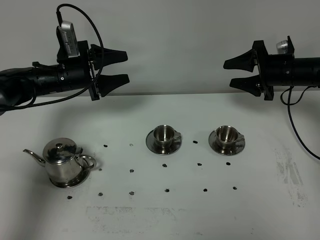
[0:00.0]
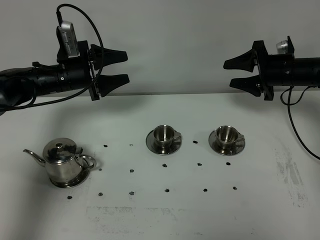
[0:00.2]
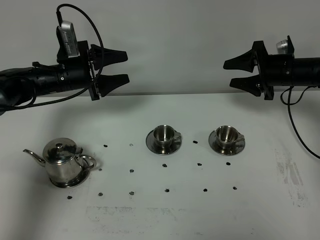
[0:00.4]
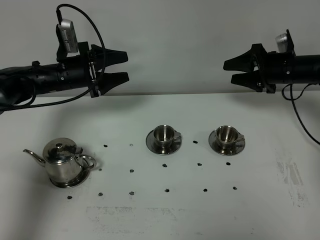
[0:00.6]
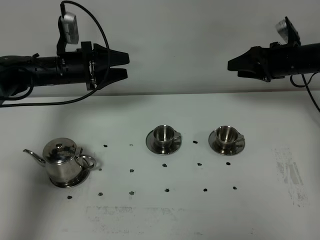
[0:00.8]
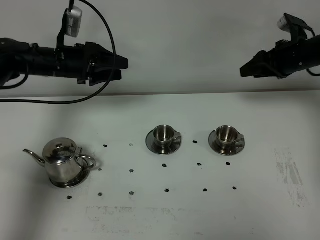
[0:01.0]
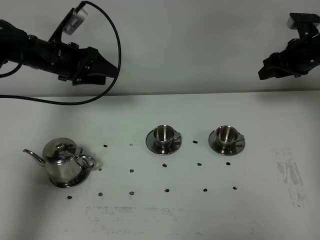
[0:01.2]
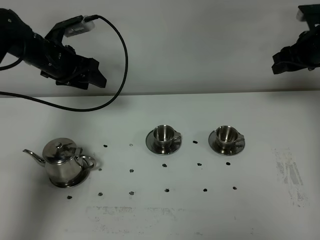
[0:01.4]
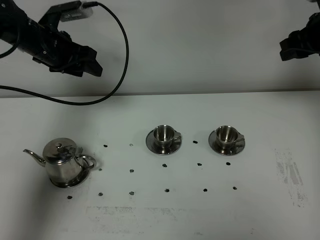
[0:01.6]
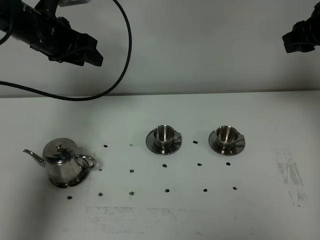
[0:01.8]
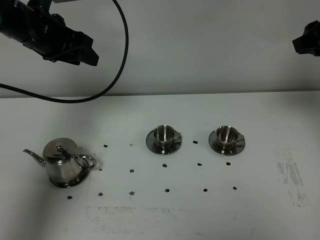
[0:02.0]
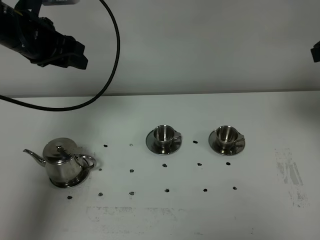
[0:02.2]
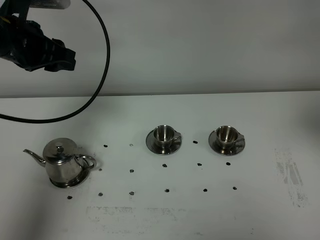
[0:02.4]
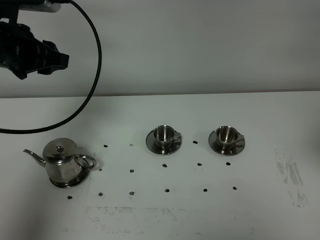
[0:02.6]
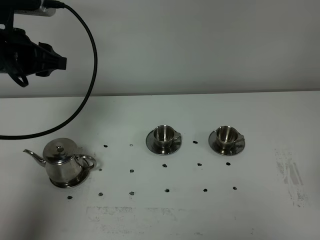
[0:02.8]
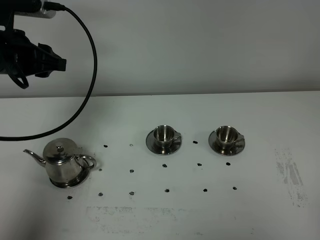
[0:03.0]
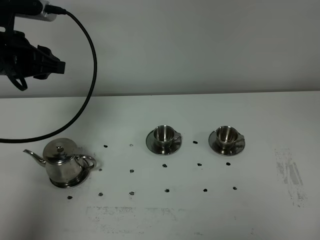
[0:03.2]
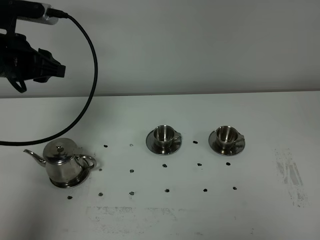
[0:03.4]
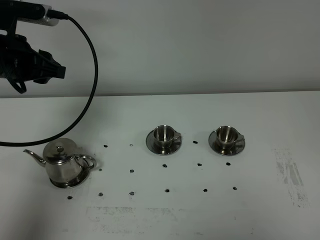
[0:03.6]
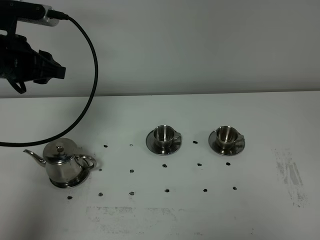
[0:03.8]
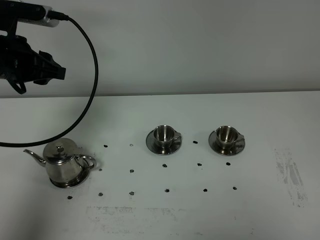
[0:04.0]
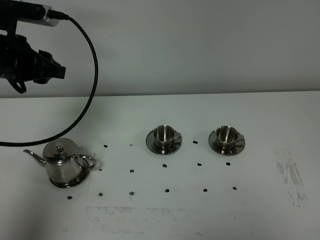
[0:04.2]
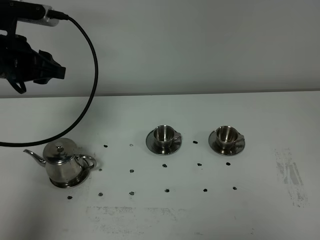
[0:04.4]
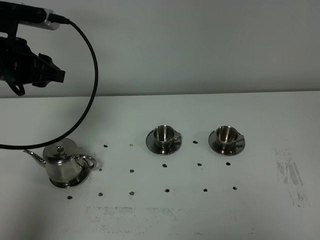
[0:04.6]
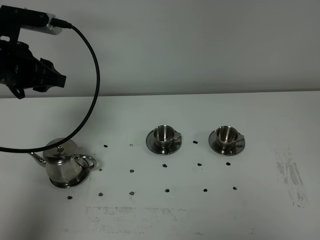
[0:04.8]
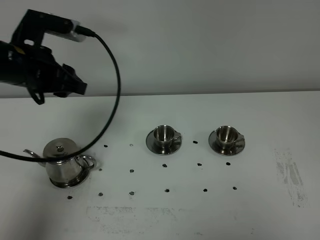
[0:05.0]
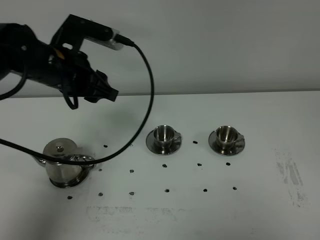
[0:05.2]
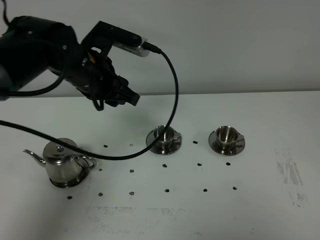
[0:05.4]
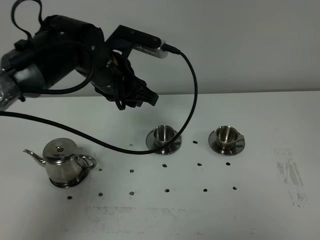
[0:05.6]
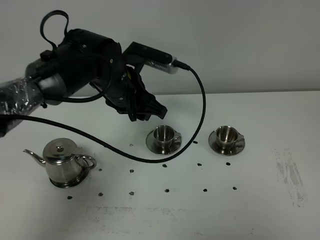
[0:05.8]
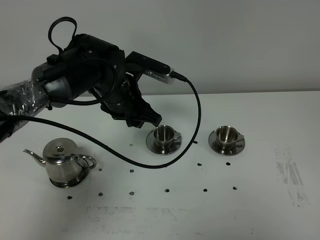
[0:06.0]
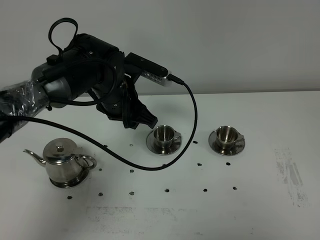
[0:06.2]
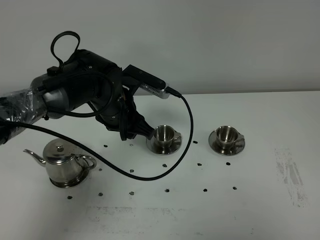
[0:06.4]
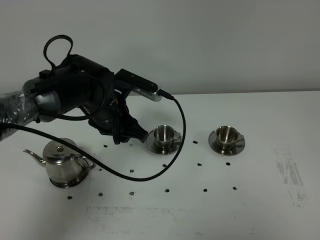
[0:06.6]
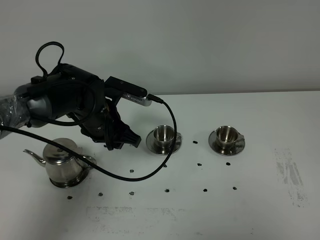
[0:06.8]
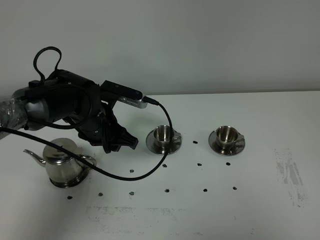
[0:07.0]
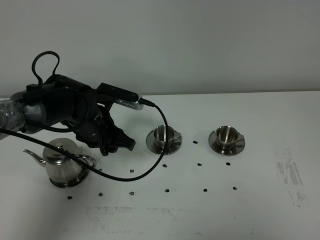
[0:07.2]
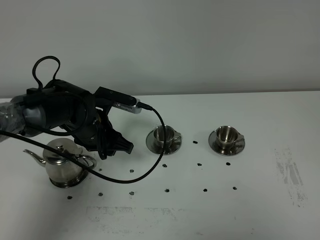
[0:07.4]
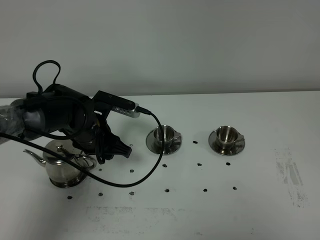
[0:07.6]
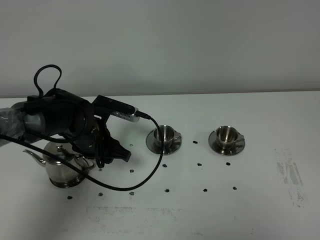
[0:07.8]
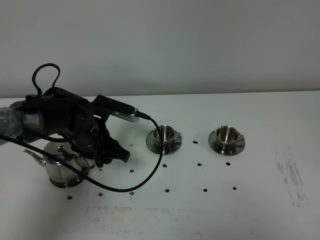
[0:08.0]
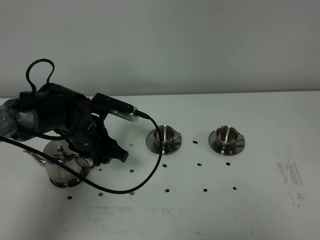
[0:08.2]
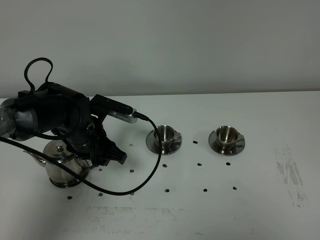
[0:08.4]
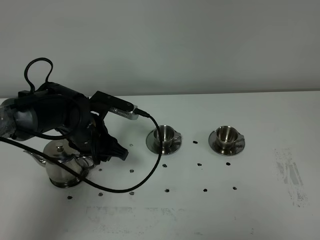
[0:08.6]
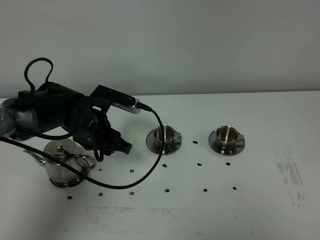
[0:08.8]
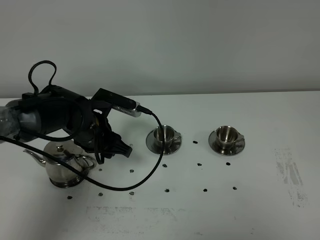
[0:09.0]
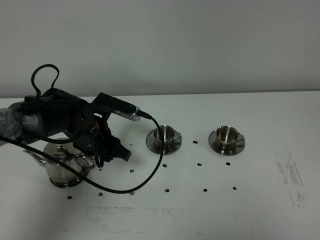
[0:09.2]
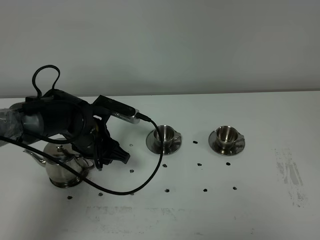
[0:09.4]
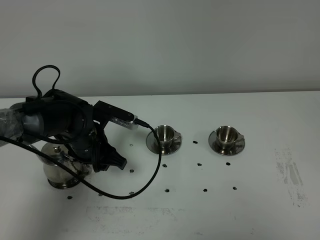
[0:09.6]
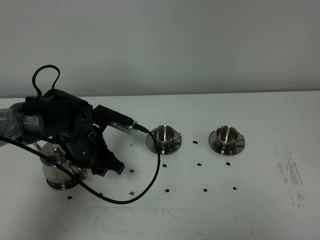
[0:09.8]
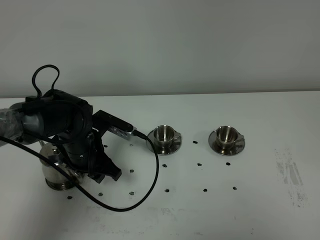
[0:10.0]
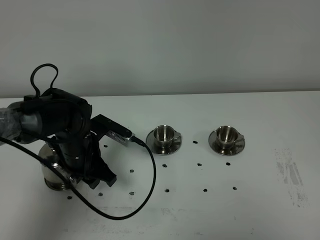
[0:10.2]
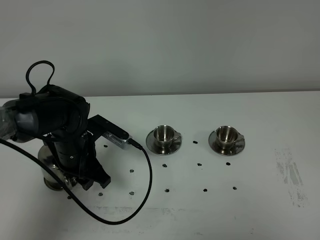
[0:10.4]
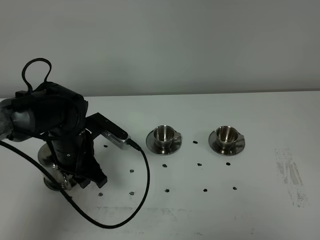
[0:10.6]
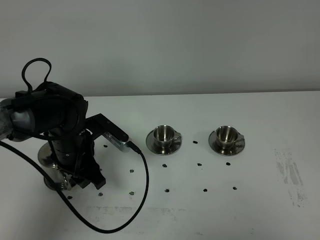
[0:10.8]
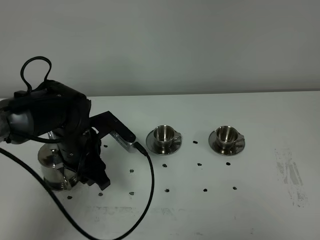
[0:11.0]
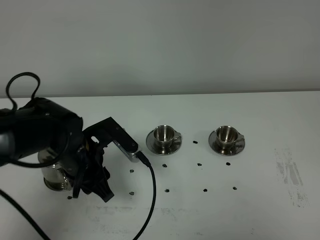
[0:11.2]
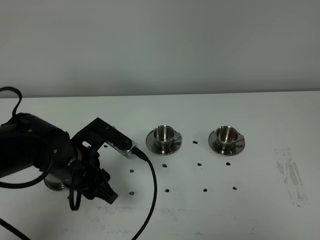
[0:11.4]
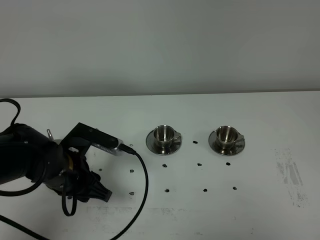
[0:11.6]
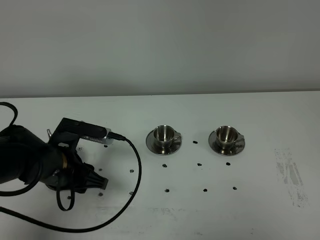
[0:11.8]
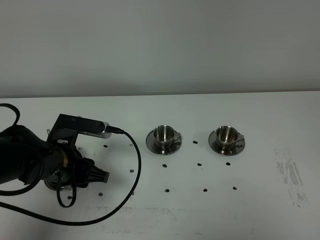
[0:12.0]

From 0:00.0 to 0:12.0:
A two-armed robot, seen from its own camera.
Task of the whole recording: grasp the stainless steel teapot and pour the tea into the two stainless steel teacups one by one, put the stainless steel teapot back in its original place.
From 0:00.0 to 0:01.6: Both grippers travel together upward, about 10 cm.
From 0:01.6 to 0:03.0: The right gripper heads backward, covering roughly 40 cm, and closes its fingers; the left gripper is displaced backward by roughly 10 cm.
From 0:04.4 to 0:06.0: The left gripper heads to the right and downward, covering approximately 20 cm.
From 0:06.0 to 0:07.6: The left gripper is displaced downward and to the left by some 10 cm.
From 0:07.6 to 0:09.0: The grippers move only a little.
From 0:10.4 to 0:12.0: The left gripper is displaced backward by roughly 5 cm.

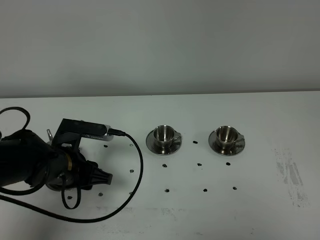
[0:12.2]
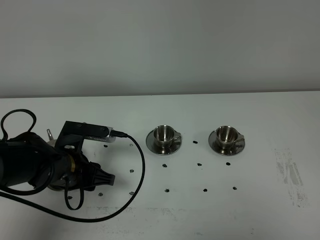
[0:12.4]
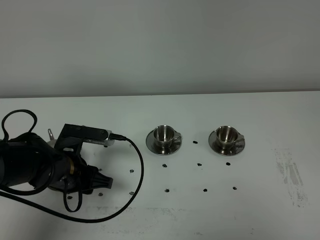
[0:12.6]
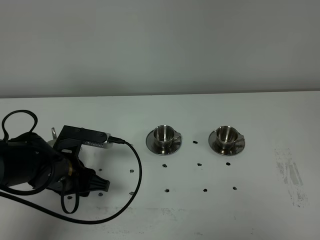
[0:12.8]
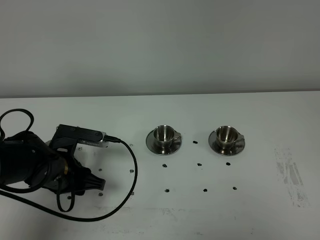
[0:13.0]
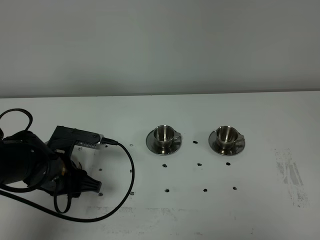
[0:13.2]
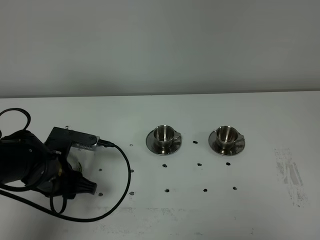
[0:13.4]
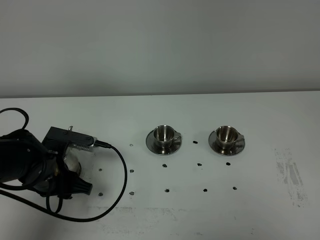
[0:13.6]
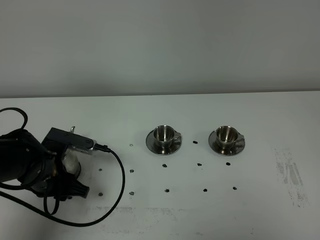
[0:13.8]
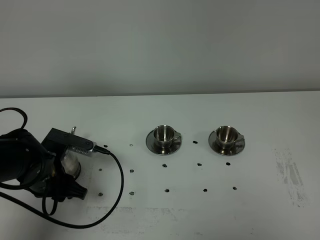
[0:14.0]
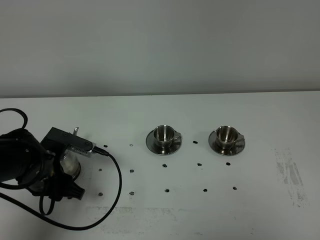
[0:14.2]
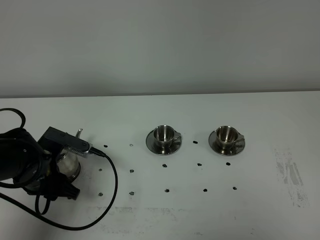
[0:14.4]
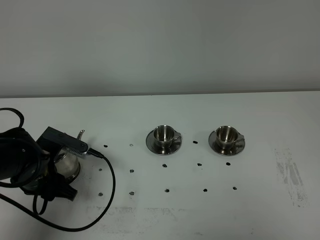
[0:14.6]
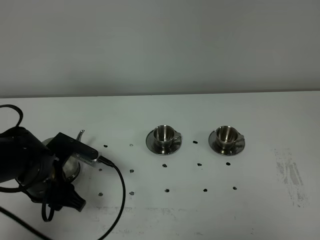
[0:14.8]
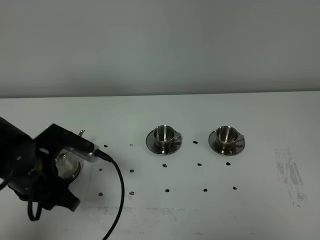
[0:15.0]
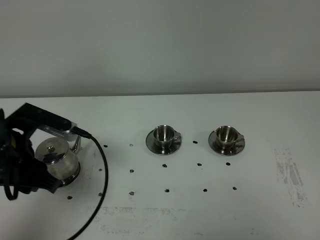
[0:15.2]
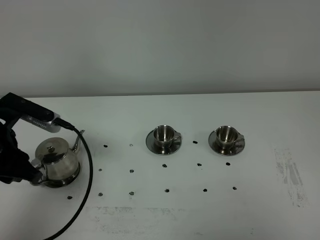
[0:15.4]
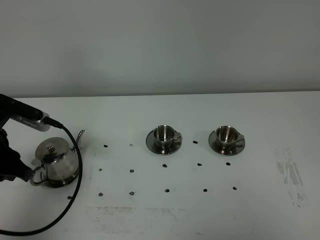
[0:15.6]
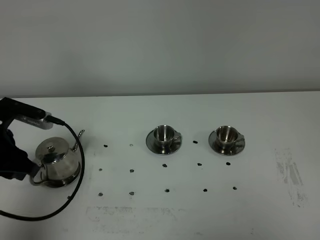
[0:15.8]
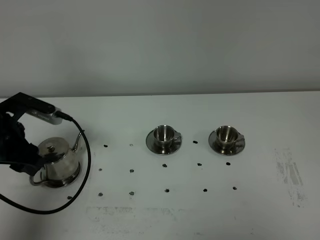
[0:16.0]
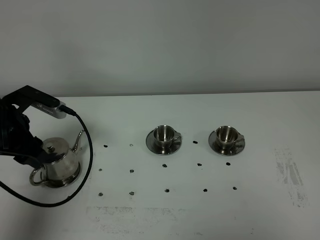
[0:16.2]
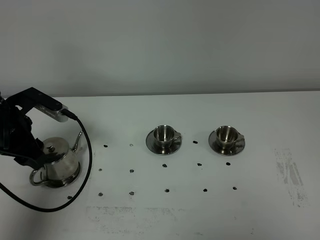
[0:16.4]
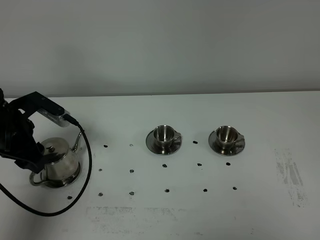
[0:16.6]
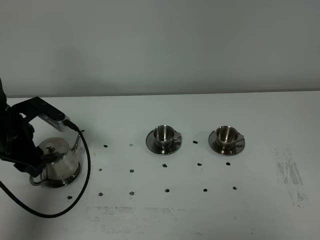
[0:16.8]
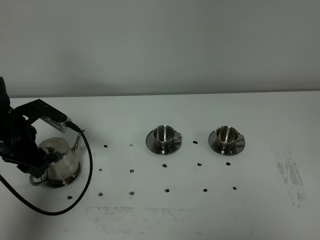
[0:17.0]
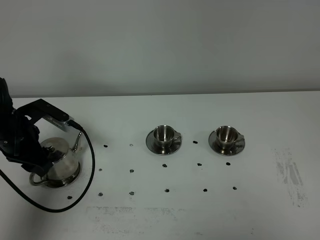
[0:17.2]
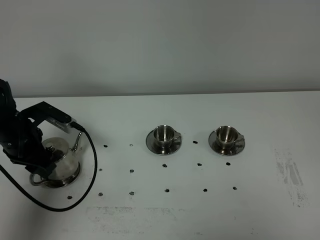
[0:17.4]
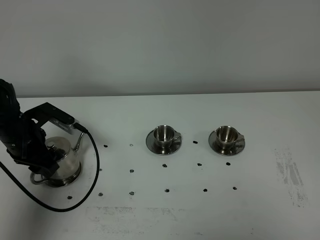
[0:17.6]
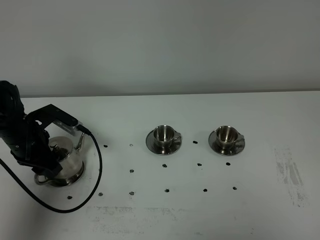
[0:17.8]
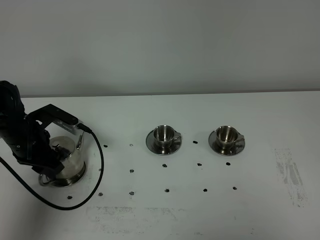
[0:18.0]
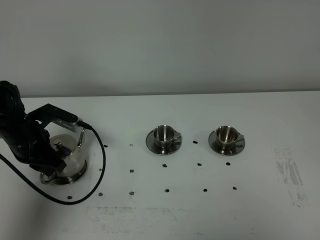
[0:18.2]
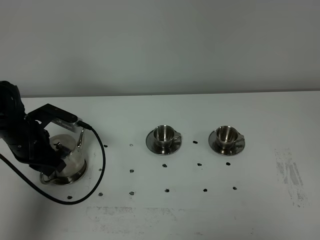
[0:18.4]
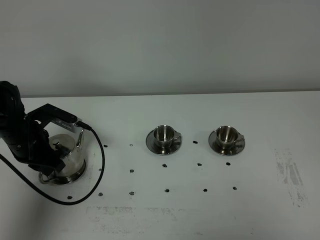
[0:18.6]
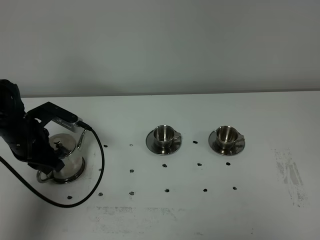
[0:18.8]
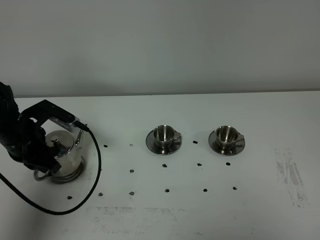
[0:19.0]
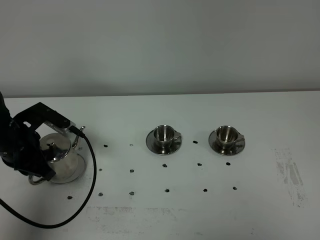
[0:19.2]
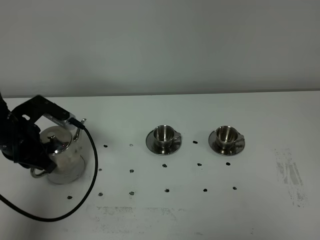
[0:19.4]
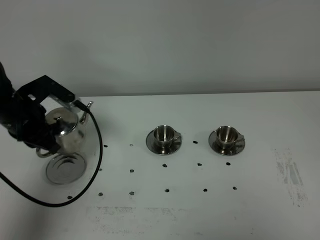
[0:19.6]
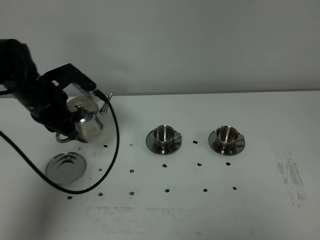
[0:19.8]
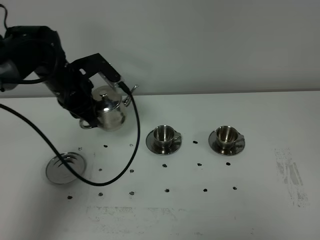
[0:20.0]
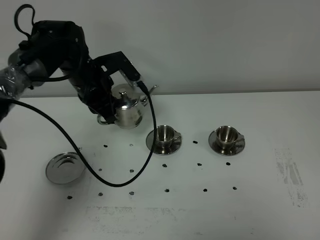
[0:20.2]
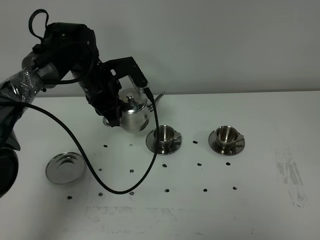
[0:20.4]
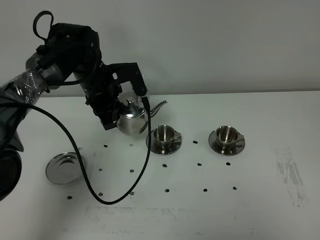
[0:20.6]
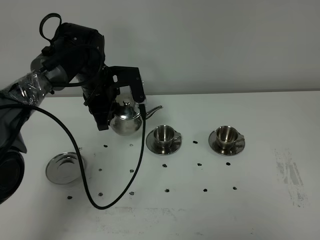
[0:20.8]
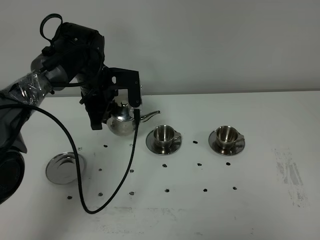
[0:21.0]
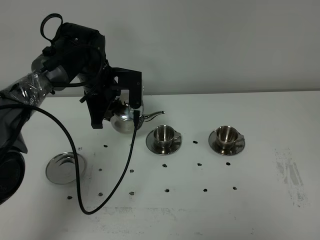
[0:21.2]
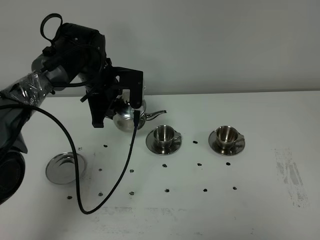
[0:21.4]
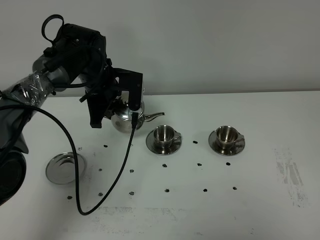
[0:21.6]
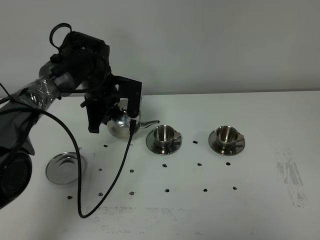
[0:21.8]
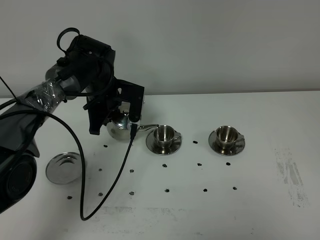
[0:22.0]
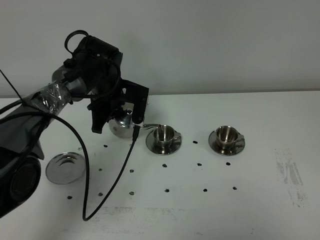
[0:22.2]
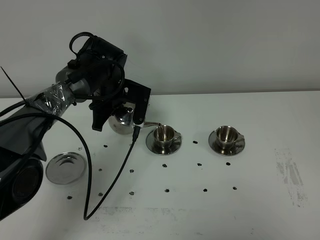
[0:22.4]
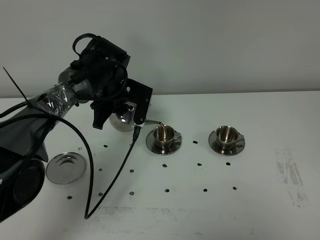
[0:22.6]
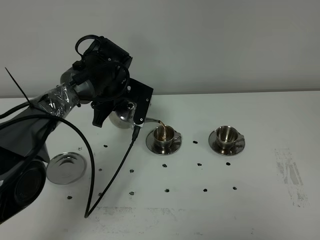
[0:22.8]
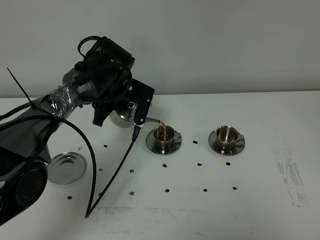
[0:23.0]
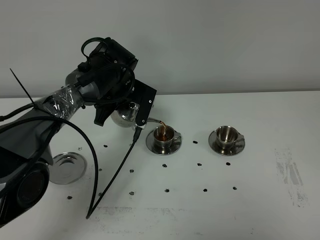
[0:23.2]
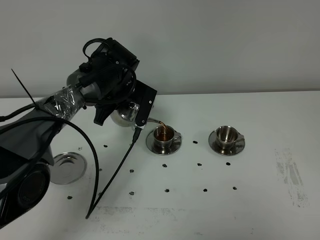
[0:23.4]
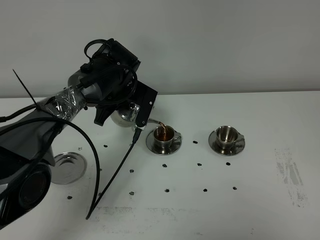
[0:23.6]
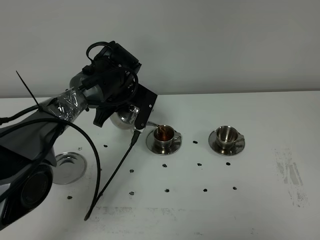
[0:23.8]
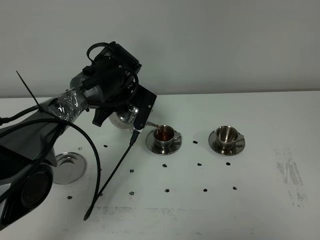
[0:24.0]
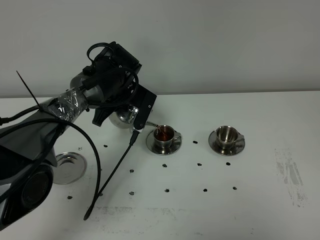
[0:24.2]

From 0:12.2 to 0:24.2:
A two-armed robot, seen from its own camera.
Task of the whole recording: grasp the stainless steel teapot and pour the tea into the two stainless steel teacups one by one, put the stainless steel teapot back in its original place.
Step, from 0:12.2 to 0:19.4: Pick up the teapot with the left gripper.
From 0:12.2 to 0:13.8: The grippers stay close to where they were, moving slightly.
From 0:13.8 to 0:15.2: The left gripper heads upward, covering roughly 10 cm.
From 0:15.2 to 0:16.6: The left gripper goes roughly 10 cm forward and to the left.
From 0:16.6 to 0:18.2: The left gripper moves about 5 cm, and closes.
From 0:18.2 to 0:19.8: The left gripper is displaced upward by some 5 cm.
From 0:19.8 to 0:21.2: The left gripper shifts about 10 cm to the right and forward.
From 0:21.2 to 0:22.6: The grippers stay close to where they were, moving slightly.
From 0:22.6 to 0:24.2: There are only small adjustments of the grippers.
